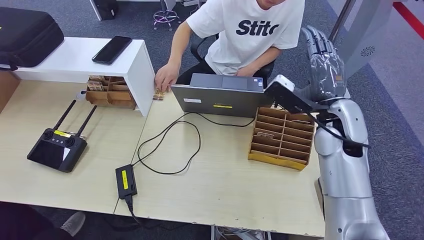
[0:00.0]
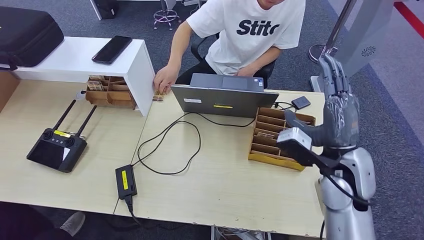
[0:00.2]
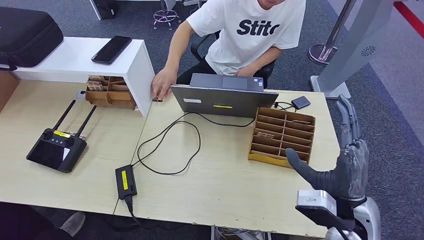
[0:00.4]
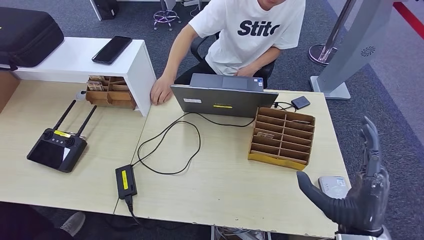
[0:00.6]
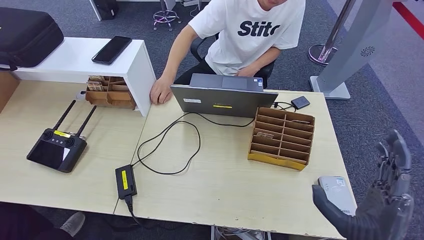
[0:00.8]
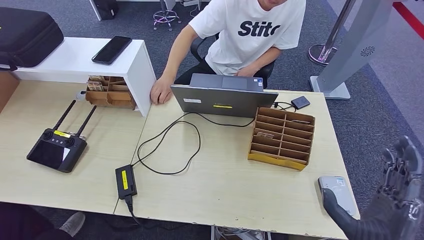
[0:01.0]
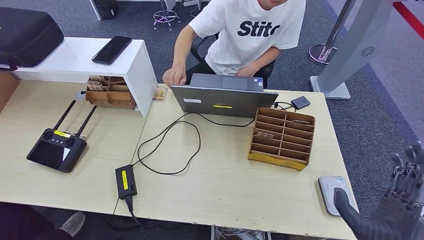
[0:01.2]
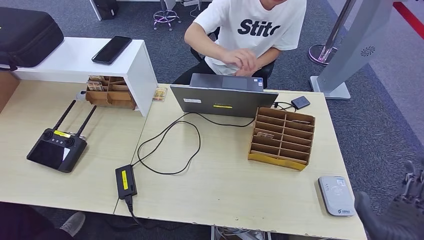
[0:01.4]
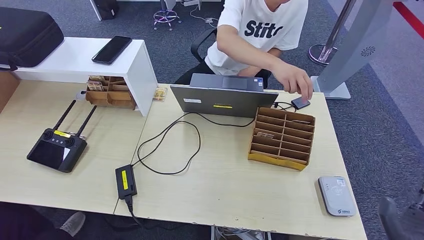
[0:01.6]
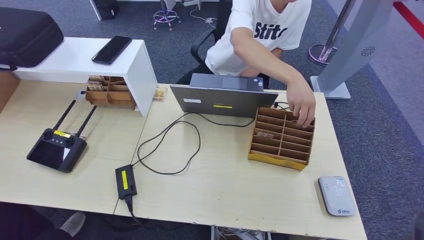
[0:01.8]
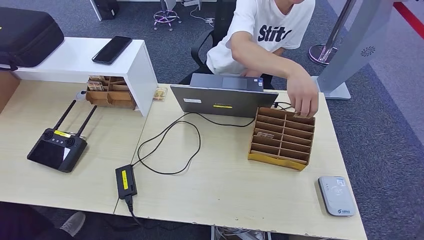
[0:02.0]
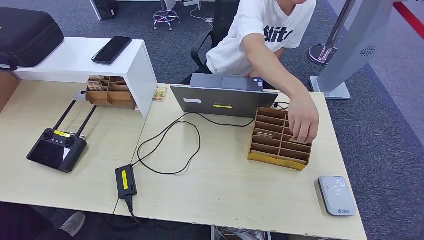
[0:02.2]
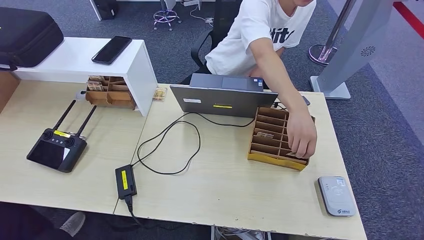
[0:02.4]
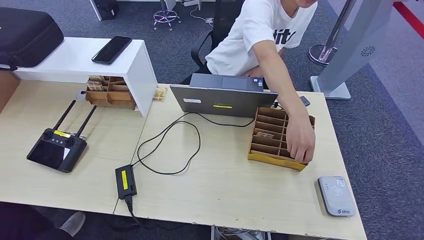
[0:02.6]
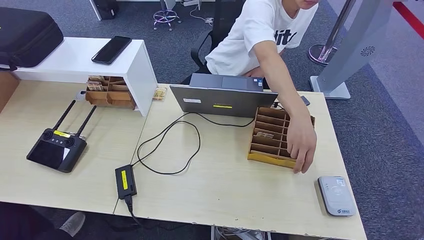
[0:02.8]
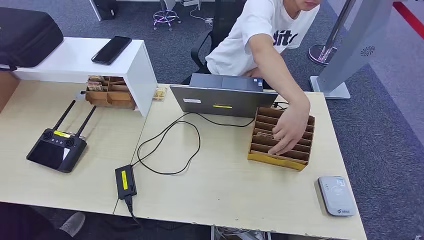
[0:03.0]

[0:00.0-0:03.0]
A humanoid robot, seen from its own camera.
Step, 0:00.0 to 0:02.8: Hand the room key to the person.
0:00.0 to 0:01.6: The right hand shifts approximately 30 cm backward and downward.
0:01.6 to 0:03.0: The right hand is displaced downward and to the right by approximately 15 cm.
